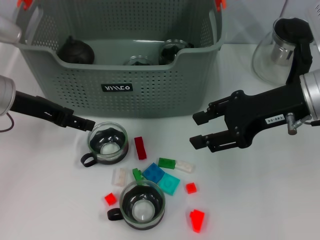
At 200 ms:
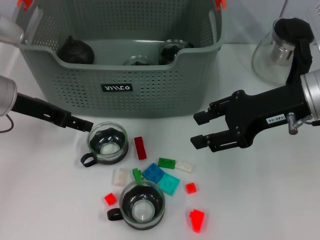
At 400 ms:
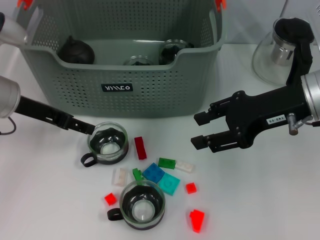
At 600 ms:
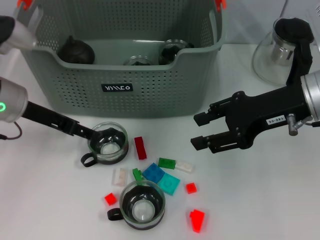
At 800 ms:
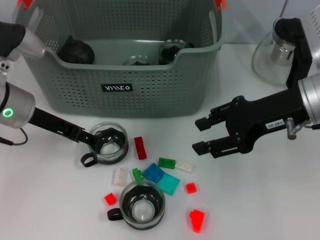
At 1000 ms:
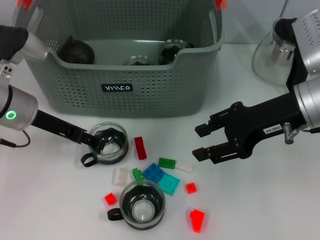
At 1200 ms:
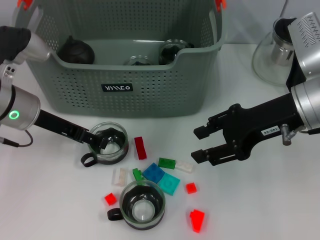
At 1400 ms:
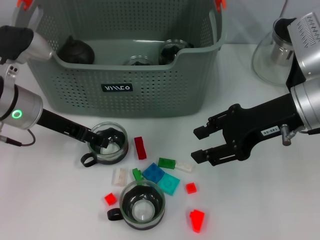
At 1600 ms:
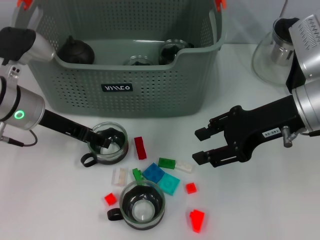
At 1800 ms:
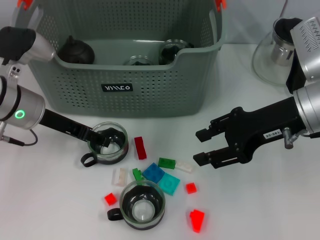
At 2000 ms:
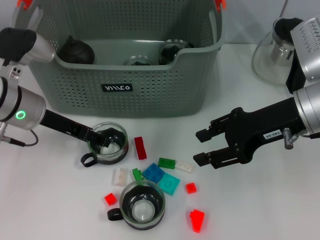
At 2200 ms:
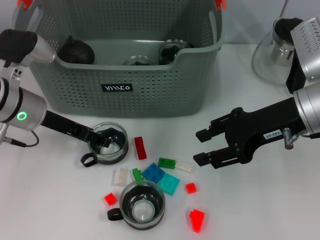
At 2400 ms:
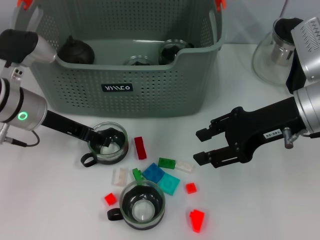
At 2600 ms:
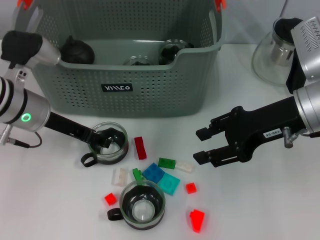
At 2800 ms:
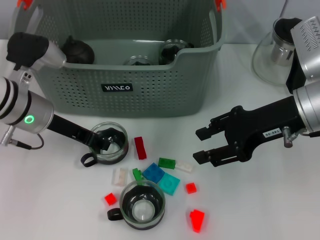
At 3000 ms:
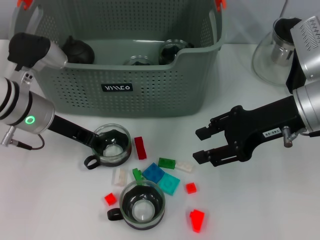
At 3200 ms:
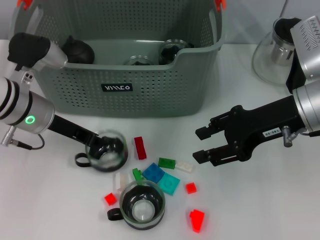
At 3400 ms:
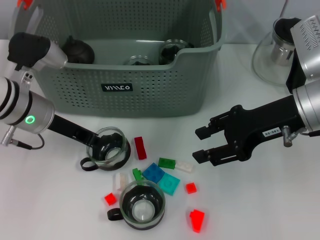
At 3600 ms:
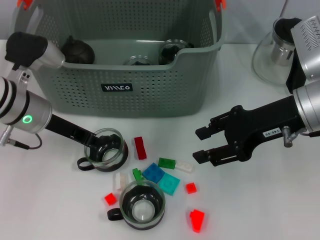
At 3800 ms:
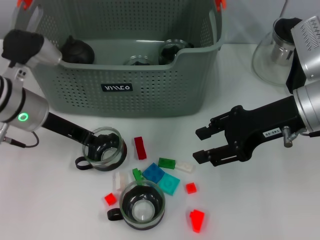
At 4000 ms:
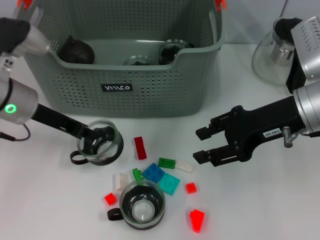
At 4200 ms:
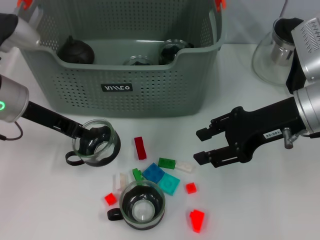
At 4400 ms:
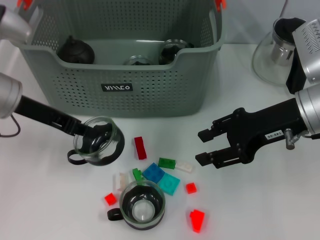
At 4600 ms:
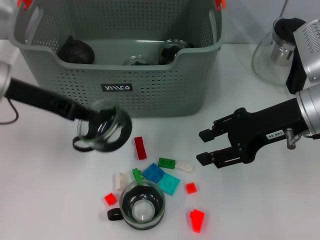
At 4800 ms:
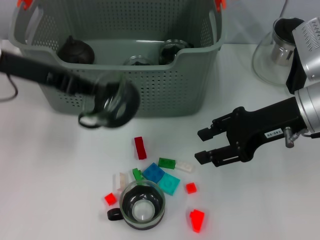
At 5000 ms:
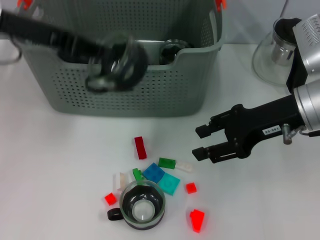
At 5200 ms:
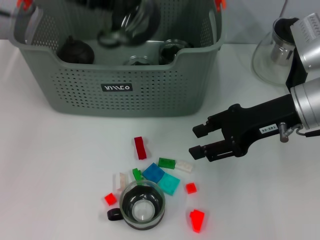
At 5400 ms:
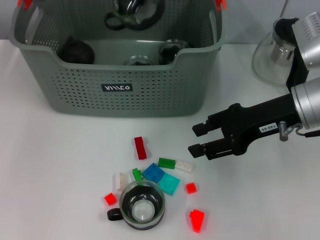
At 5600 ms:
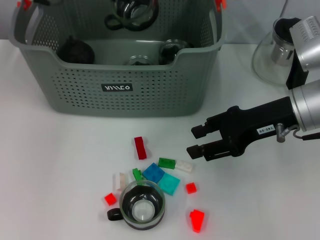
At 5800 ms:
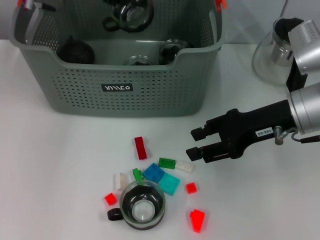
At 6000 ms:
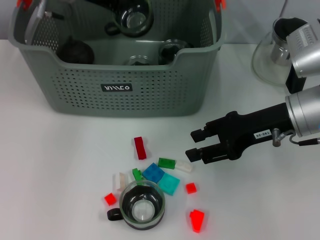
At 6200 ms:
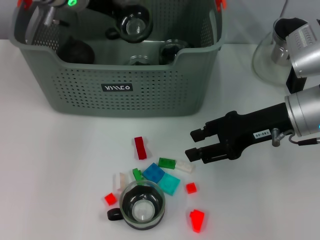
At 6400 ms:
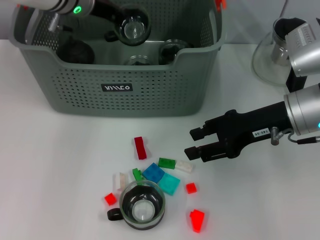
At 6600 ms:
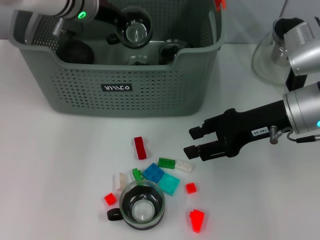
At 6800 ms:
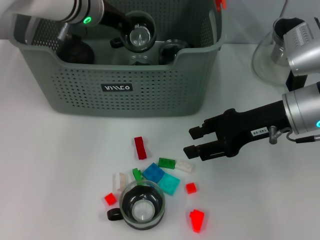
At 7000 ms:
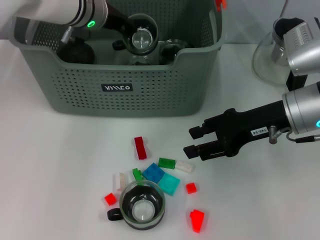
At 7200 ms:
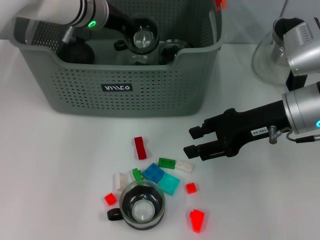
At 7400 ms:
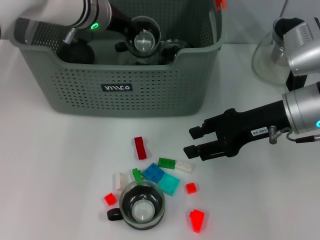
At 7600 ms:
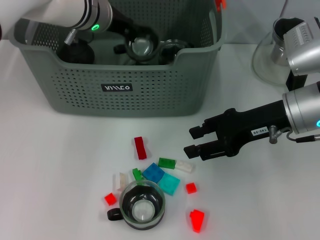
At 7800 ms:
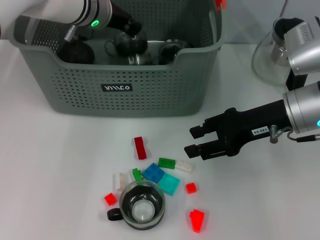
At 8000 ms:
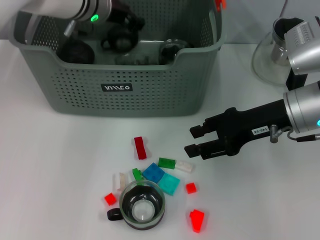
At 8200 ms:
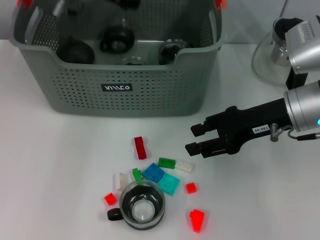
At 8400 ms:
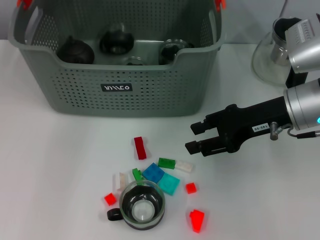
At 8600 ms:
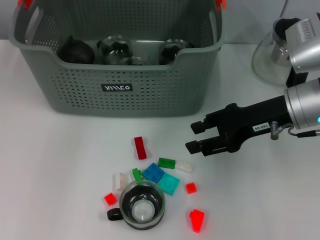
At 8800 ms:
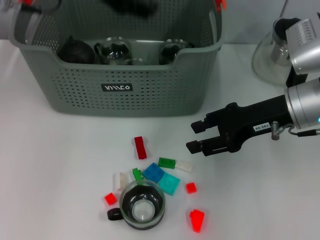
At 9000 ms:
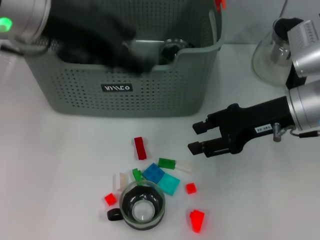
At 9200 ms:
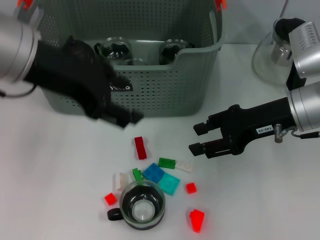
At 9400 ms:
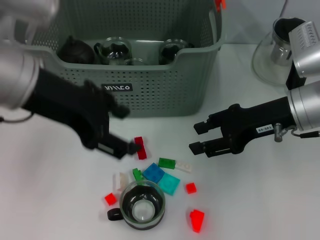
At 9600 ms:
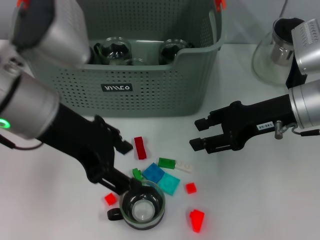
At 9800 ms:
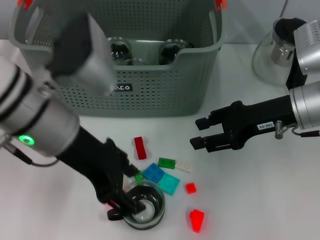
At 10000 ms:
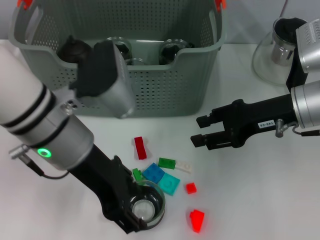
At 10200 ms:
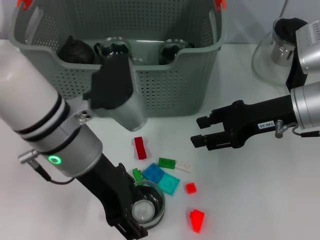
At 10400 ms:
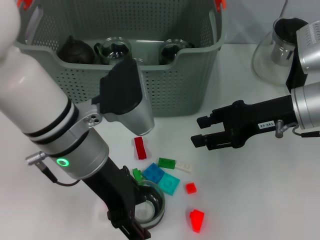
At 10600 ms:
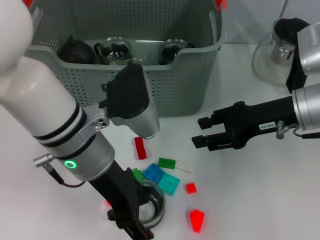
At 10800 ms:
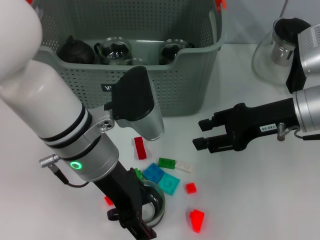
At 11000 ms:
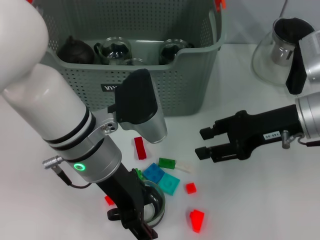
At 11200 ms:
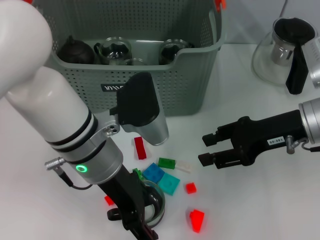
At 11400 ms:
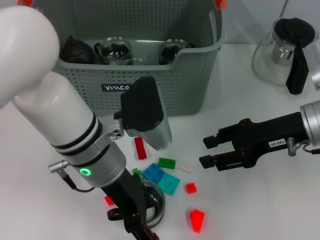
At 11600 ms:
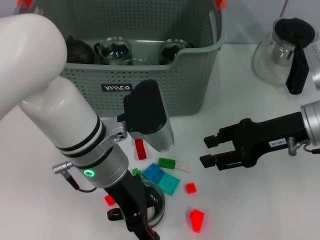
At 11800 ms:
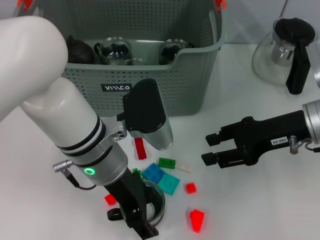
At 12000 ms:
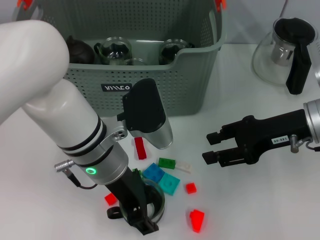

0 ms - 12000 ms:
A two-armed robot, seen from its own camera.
Task of the whole recording: pick up the teacup on the table and place it into the storage bin, pick up the block on the table and place it into the storage bin.
Step, 0 ms - 3400 ms: Grasp the cup with left gripper.
Step, 3600 ms - 7600 ms: Place the cup in the storage box with left gripper.
0 ms - 3000 ms: The grippers stay close to where they were, moving slightly.
3000 ms - 4400 ms: The left gripper heads upward, covering about 5 cm, and closes up.
4400 ms - 6000 ms: The left gripper moves forward, to the right and upward, roughly 15 cm.
6000 ms - 7600 ms: The left gripper is displaced downward by roughly 5 cm.
7600 ms - 9000 ms: The left gripper heads backward and upward, covering approximately 20 cm, and opens.
9000 ms - 10400 ms: The left gripper moves downward and to the right, approximately 15 cm.

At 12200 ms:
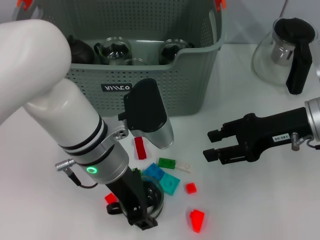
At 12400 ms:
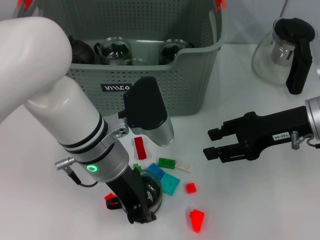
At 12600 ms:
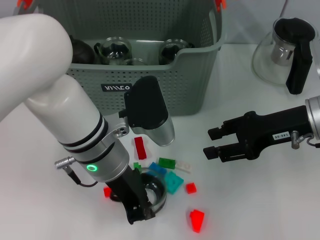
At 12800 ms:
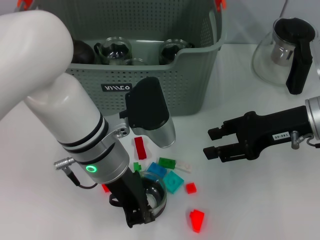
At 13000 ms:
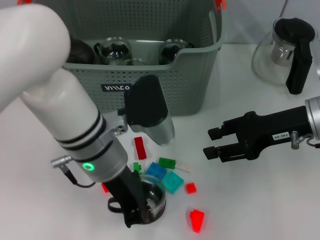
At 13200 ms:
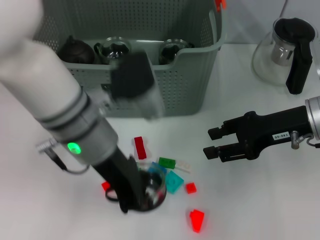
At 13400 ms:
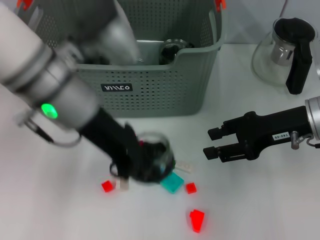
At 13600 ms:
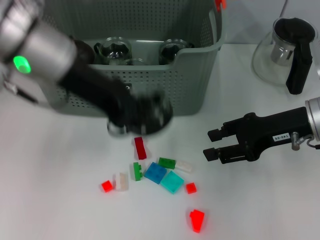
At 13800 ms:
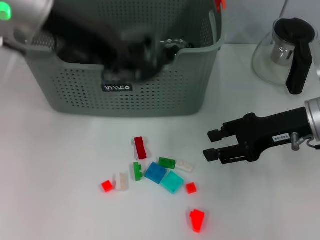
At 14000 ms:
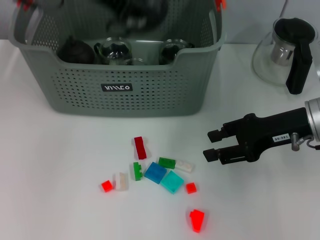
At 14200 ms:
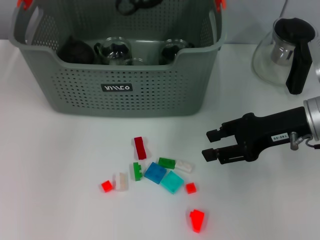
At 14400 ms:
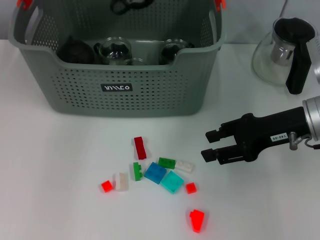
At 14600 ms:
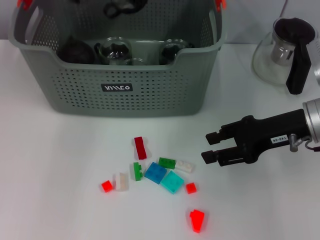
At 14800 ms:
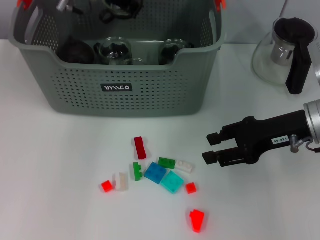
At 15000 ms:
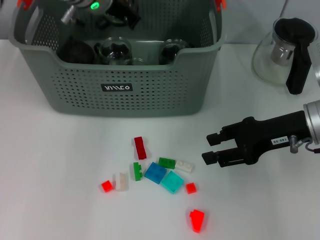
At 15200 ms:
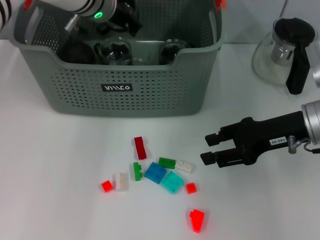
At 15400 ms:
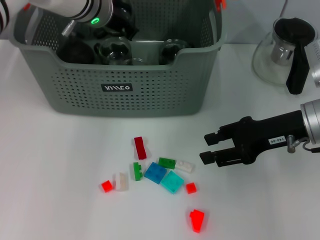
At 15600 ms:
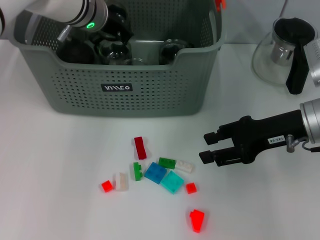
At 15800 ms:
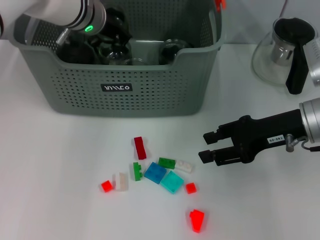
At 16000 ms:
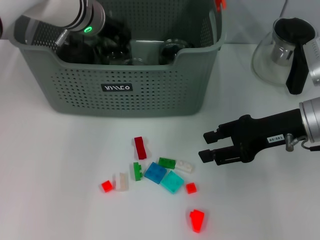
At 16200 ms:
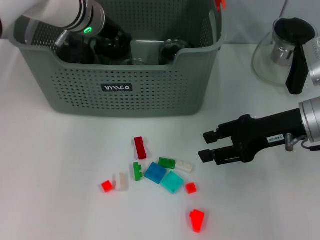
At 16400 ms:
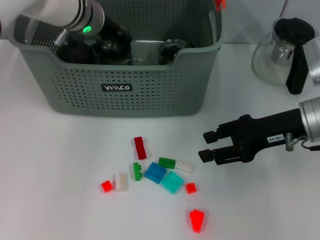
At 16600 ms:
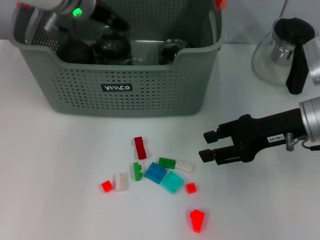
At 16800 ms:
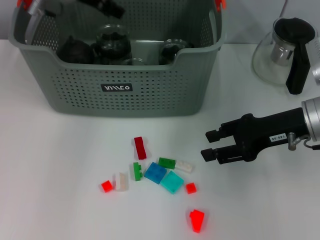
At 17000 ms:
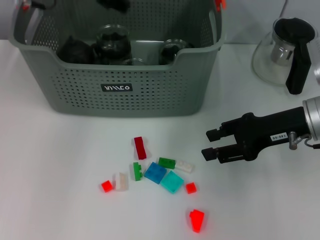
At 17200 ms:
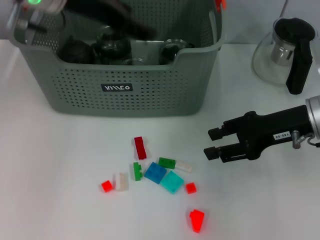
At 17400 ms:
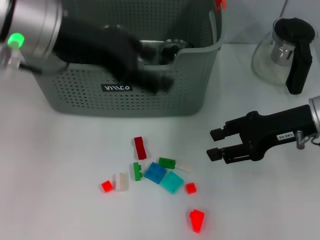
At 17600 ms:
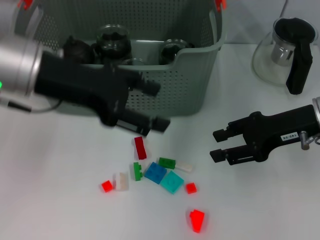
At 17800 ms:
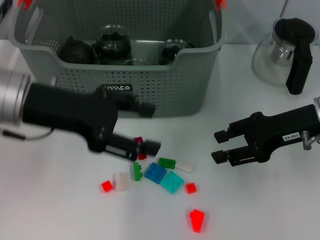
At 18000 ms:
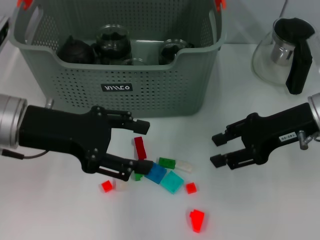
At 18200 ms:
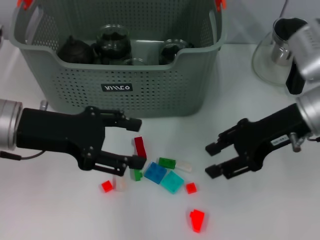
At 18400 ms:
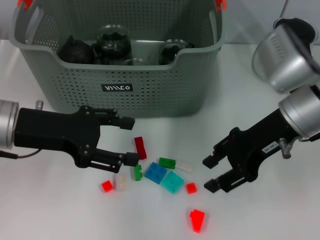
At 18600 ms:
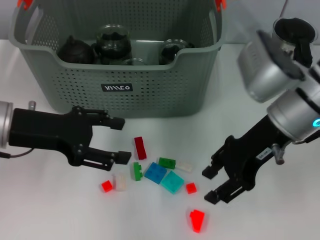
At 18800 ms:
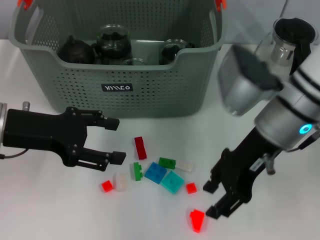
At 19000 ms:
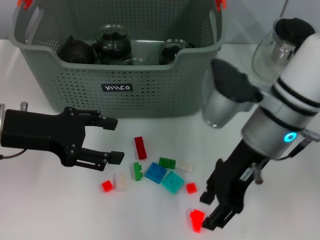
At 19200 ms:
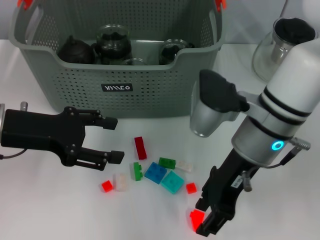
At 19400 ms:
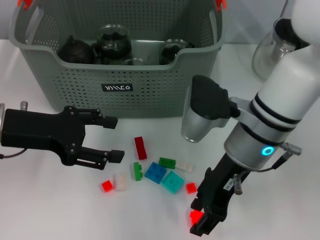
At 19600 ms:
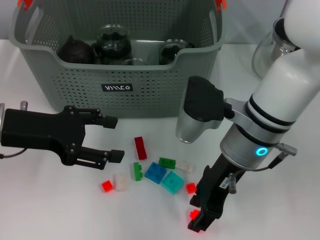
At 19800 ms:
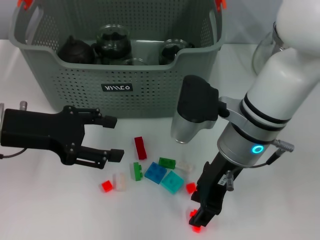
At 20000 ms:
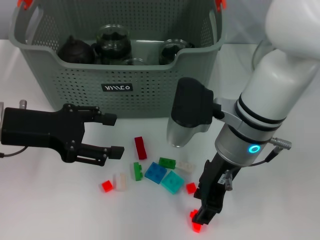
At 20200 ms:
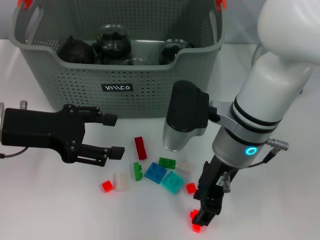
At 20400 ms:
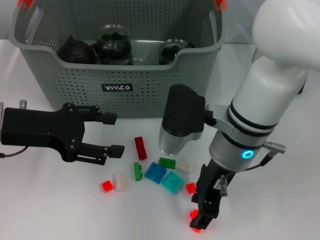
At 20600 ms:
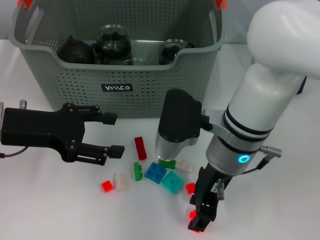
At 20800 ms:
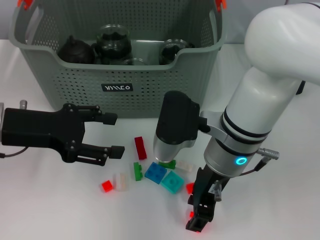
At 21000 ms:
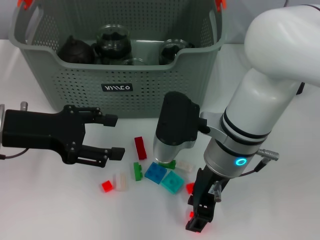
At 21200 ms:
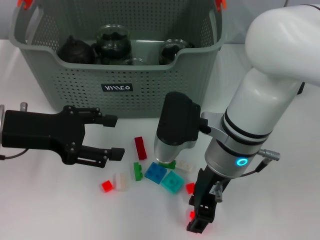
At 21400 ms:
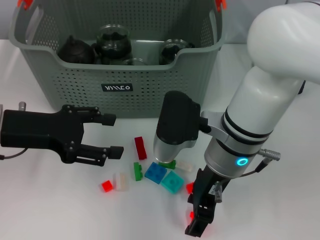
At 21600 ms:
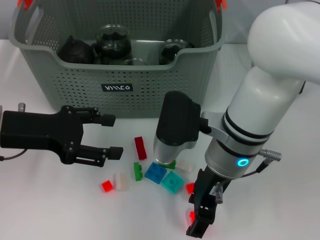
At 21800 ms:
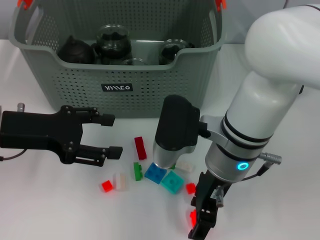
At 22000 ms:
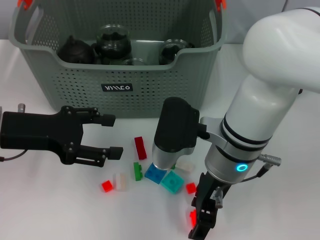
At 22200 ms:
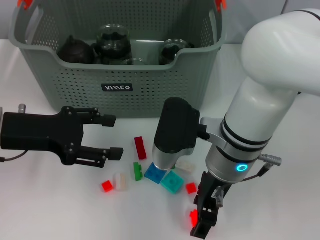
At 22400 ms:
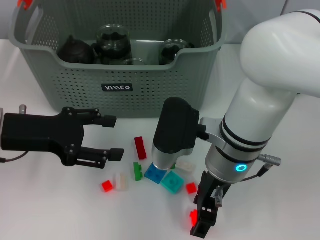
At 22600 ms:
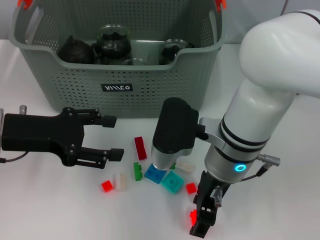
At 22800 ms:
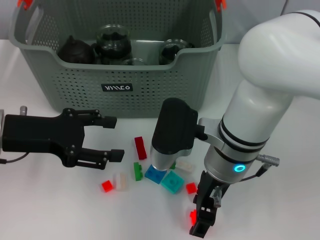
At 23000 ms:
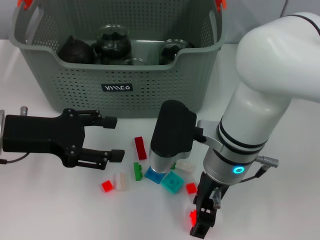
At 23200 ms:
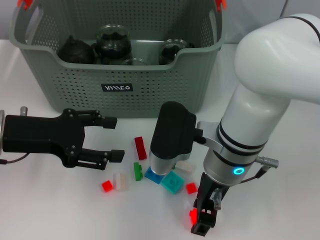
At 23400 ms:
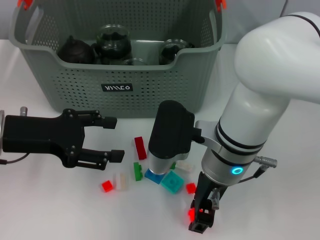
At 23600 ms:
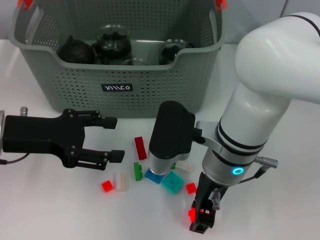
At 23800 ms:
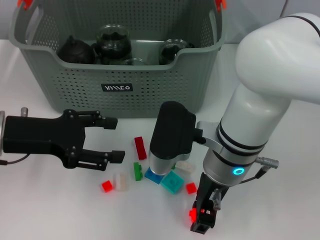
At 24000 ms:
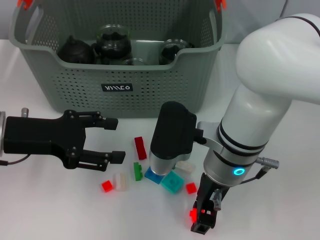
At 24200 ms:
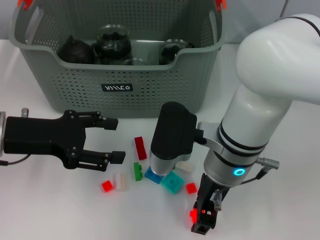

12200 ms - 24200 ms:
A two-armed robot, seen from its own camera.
Task of the whole recording: pick up the teacup on the table and place it into the storage bin, pick up the block on the table and place it into the storage bin.
Step, 12800 ms - 16400 ms: Place the cup in the storage box with left gripper.
12200 ms - 13800 ms: The left gripper moves upward and to the left, some 20 cm, and closes its fingers.
13800 ms - 15200 ms: The left gripper heads forward, downward and to the right, covering about 15 cm.
15200 ms - 16600 ms: The left gripper opens.
16600 ms - 18200 ms: The left gripper goes some 20 cm backward and to the left, and opens up.
18200 ms - 19800 ms: The right gripper is displaced to the left by some 10 cm.
19800 ms - 21200 ms: There are only small adjustments of the grippers.
21200 ms - 24200 ms: Both grippers stay put.
